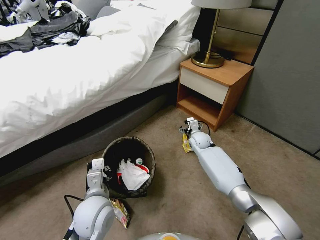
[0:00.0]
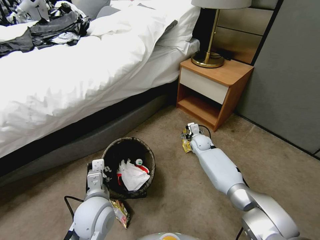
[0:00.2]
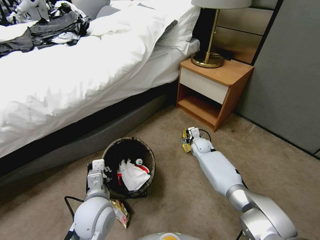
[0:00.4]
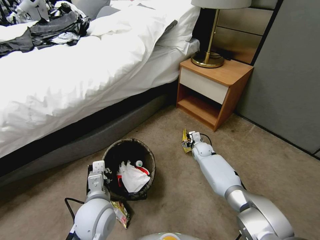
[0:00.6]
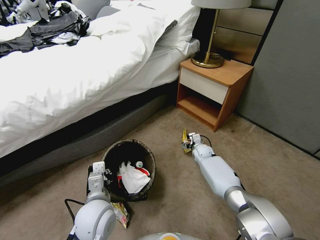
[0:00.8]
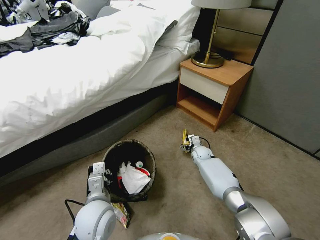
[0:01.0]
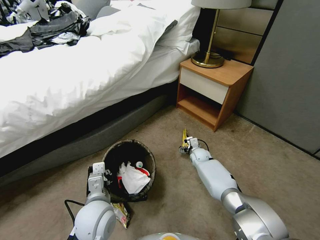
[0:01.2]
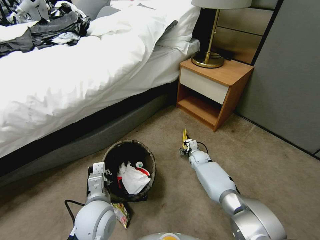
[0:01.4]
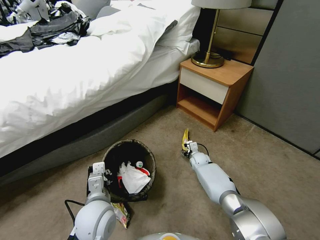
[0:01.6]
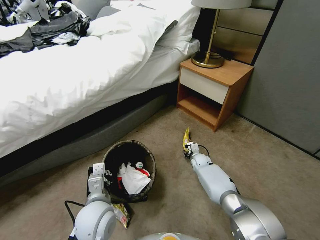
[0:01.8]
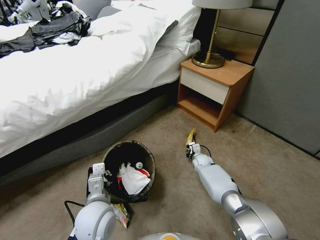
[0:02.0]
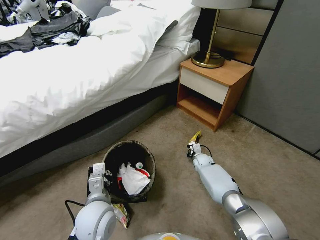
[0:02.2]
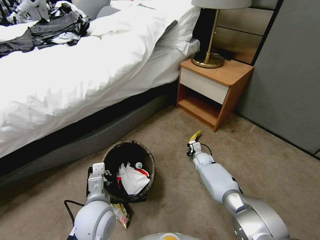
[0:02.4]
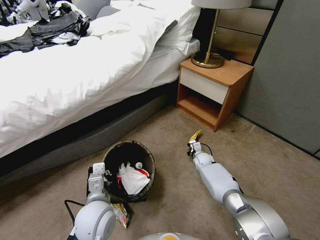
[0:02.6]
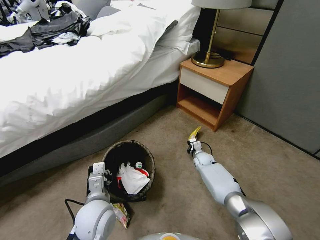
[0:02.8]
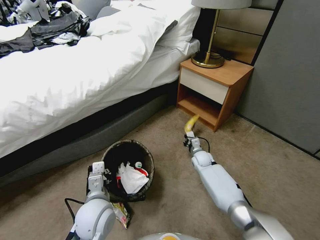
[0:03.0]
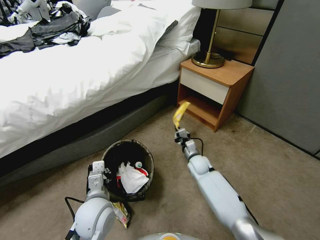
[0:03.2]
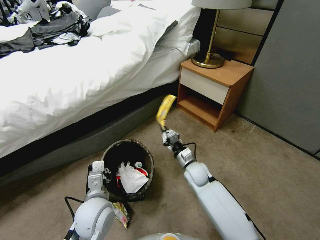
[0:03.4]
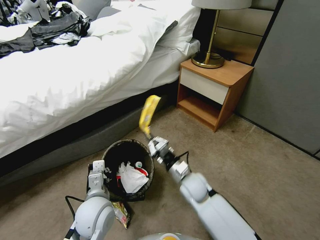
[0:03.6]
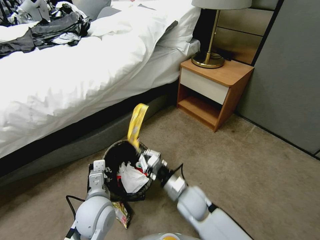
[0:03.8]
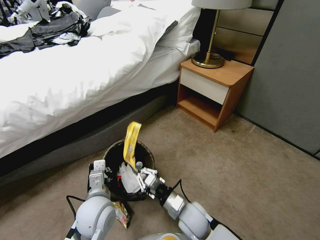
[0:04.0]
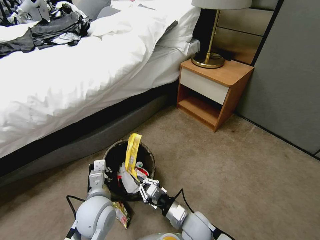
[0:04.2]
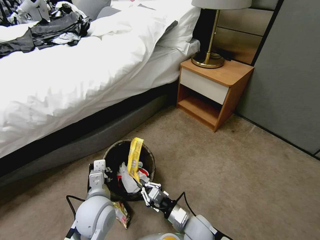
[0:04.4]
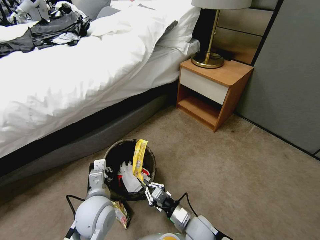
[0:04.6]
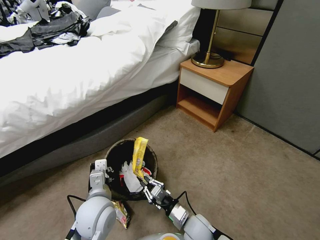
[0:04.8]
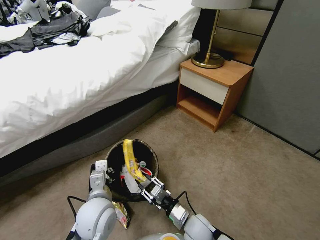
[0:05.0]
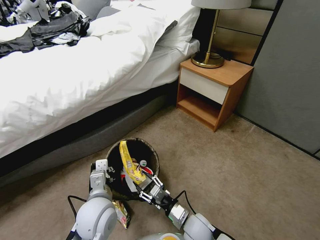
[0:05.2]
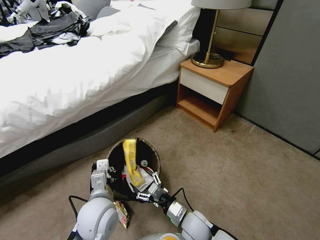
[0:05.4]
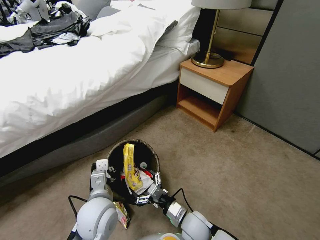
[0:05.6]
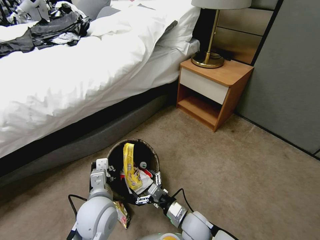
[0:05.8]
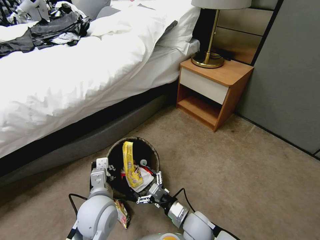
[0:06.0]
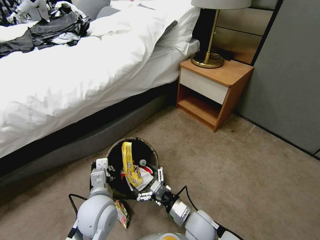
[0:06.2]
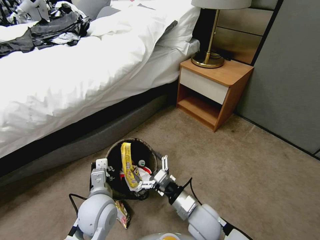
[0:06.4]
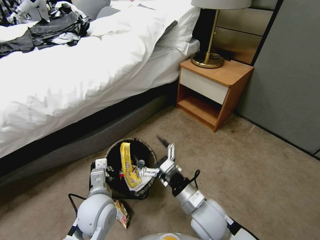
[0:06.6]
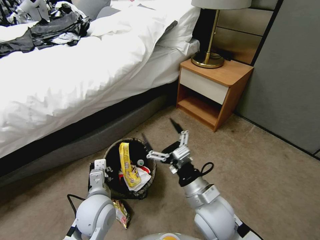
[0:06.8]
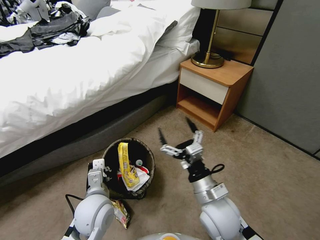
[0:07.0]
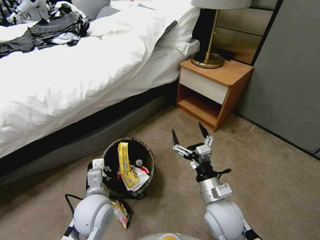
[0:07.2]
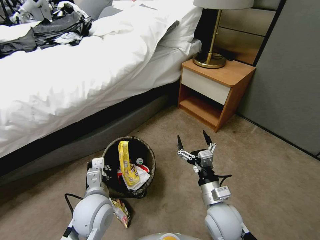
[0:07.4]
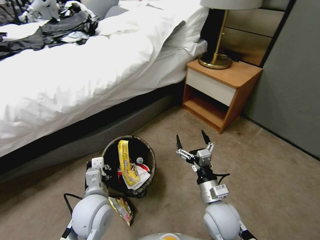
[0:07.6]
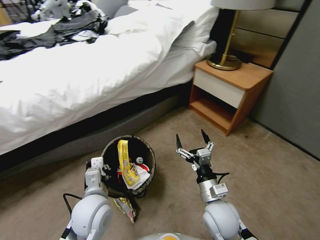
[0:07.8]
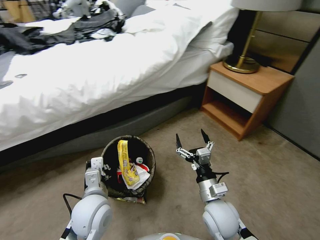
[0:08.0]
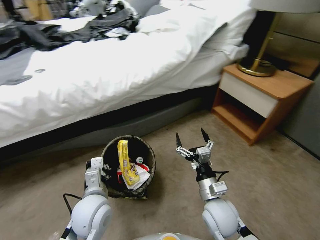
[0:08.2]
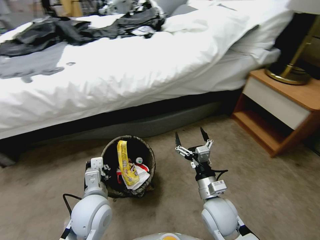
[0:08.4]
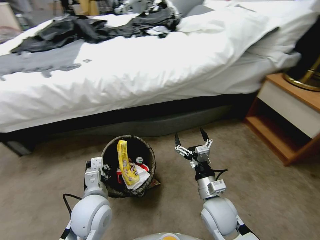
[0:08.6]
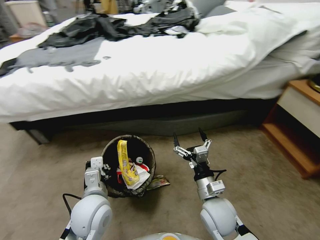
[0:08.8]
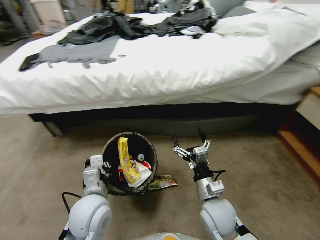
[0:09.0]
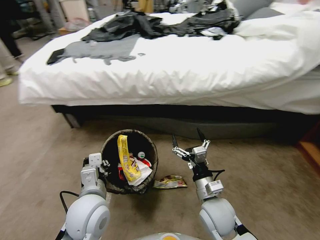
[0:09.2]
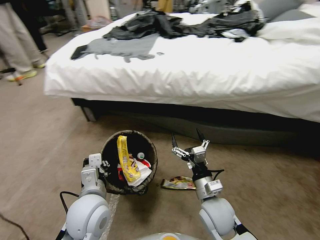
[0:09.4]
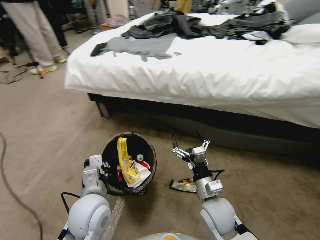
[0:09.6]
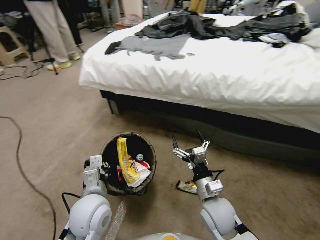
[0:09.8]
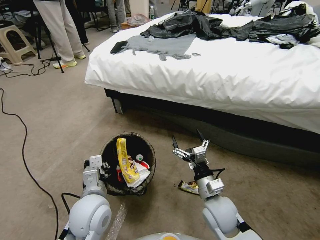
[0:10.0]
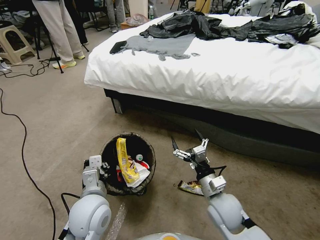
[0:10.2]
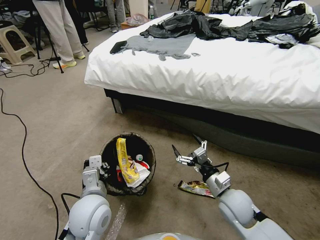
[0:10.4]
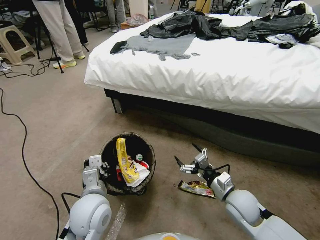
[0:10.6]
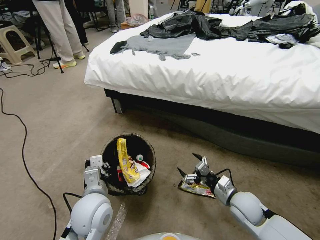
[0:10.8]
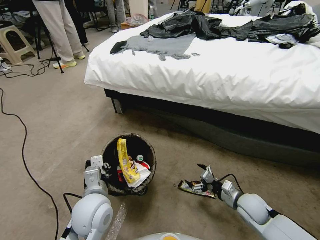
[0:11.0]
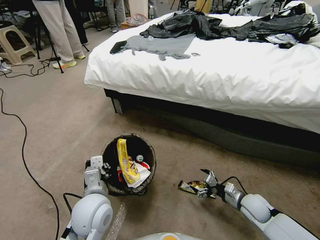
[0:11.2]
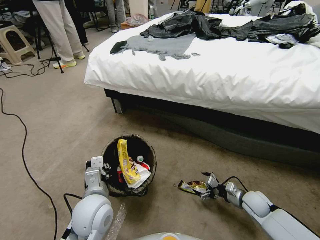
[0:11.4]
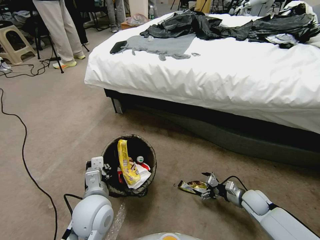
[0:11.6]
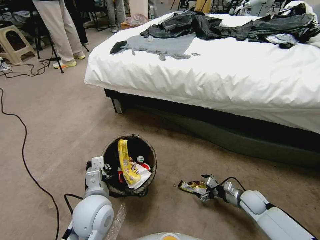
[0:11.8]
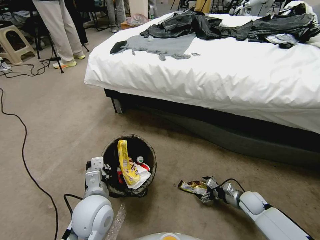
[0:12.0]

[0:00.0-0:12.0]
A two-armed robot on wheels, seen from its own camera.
Task of the whole recording: Pick up the trash bin, then pick up the garbage from the floor and place it into the trash bin.
0:00.0 to 0:01.6: The right gripper heads downward, covering about 10 cm.
0:01.6 to 0:03.0: The right gripper closes up.
0:03.0 to 0:04.4: The right gripper goes approximately 30 cm backward.
0:04.4 to 0:06.0: The right gripper opens.
0:06.0 to 0:07.6: The right gripper is displaced upward and to the right by roughly 10 cm.
0:09.0 to 0:10.4: The right gripper shifts some 5 cm to the right.
0:10.4 to 0:12.0: The right gripper goes approximately 25 cm downward and to the right.

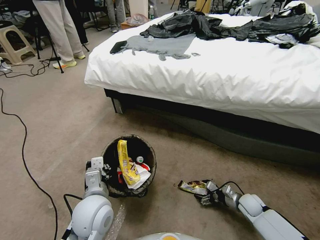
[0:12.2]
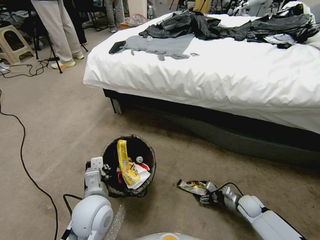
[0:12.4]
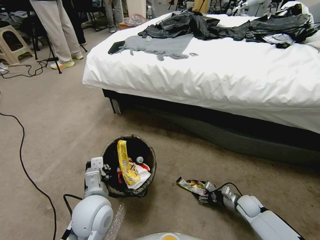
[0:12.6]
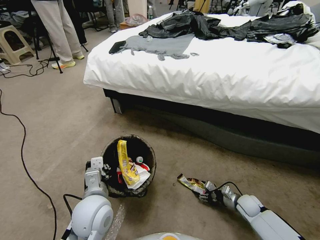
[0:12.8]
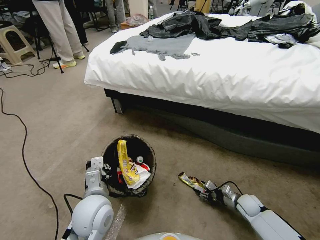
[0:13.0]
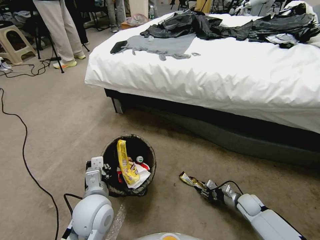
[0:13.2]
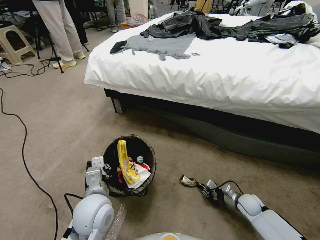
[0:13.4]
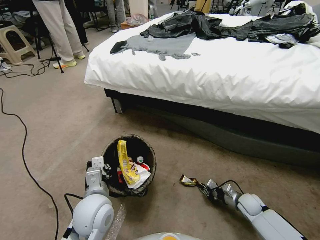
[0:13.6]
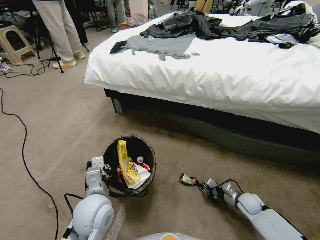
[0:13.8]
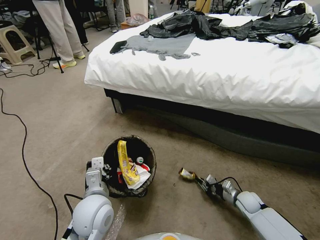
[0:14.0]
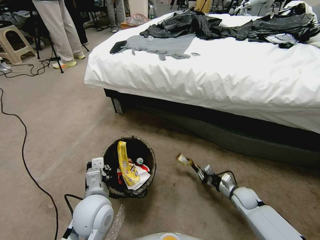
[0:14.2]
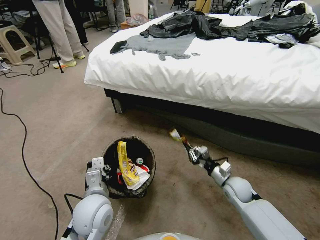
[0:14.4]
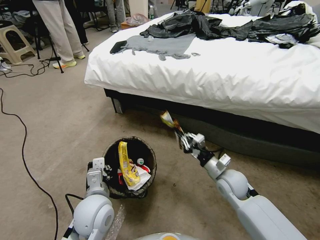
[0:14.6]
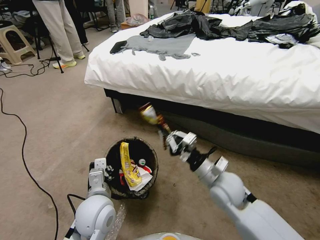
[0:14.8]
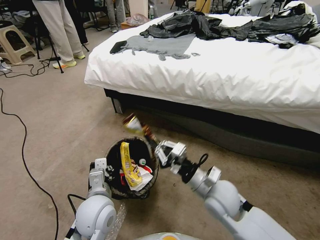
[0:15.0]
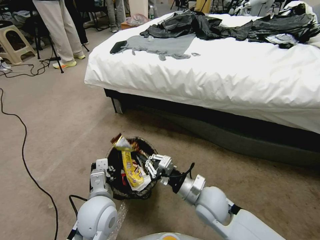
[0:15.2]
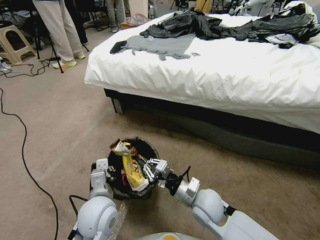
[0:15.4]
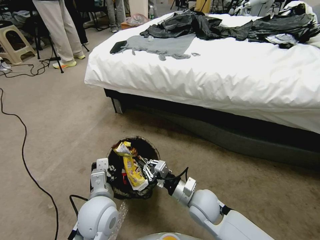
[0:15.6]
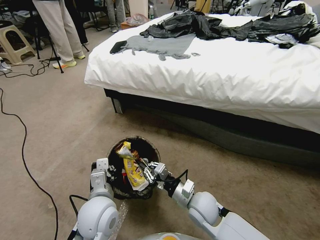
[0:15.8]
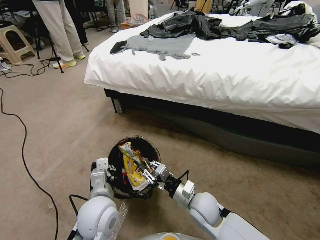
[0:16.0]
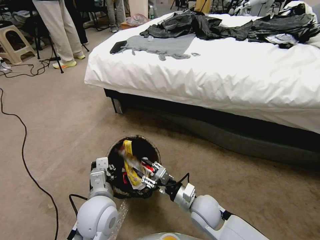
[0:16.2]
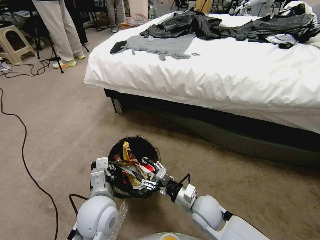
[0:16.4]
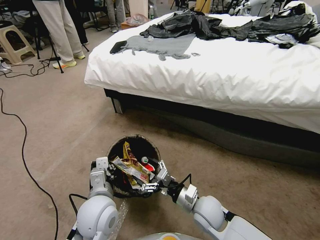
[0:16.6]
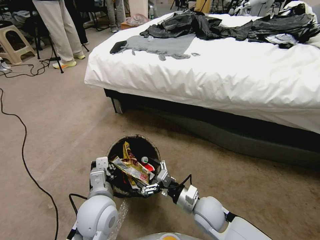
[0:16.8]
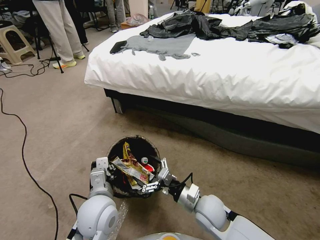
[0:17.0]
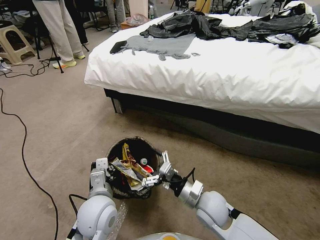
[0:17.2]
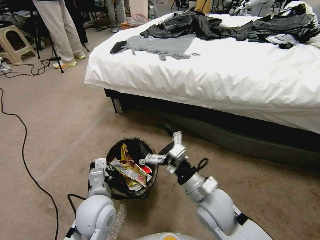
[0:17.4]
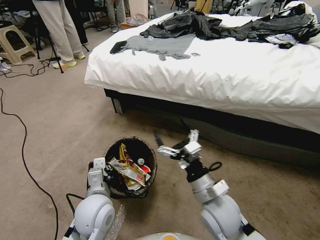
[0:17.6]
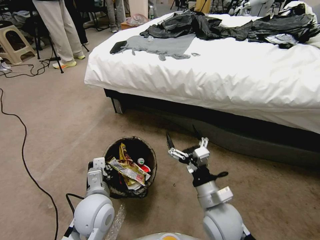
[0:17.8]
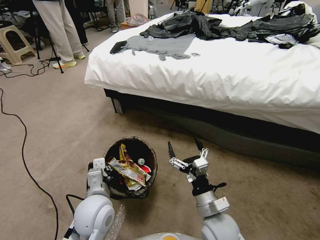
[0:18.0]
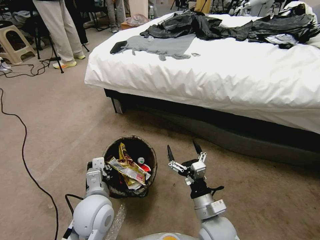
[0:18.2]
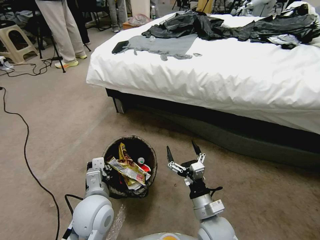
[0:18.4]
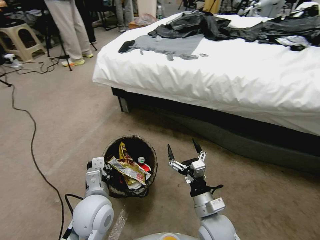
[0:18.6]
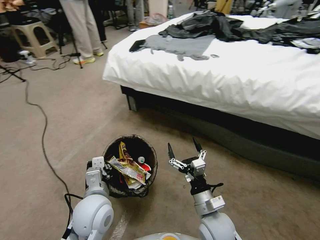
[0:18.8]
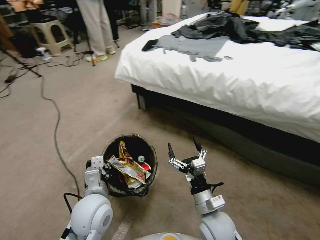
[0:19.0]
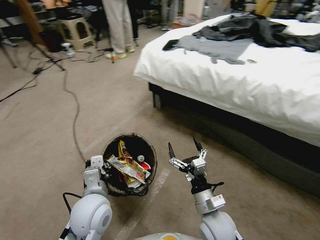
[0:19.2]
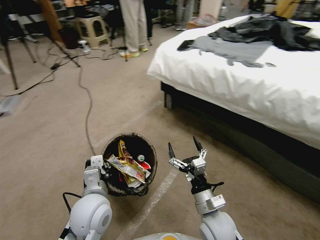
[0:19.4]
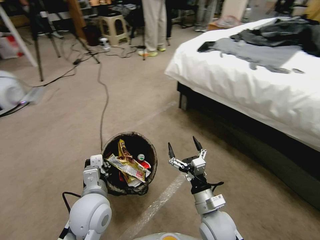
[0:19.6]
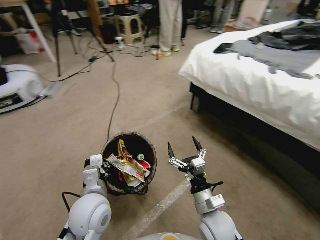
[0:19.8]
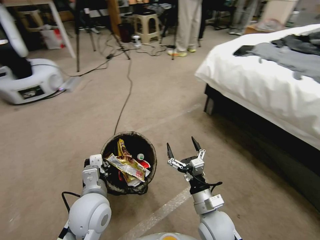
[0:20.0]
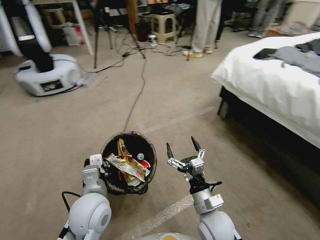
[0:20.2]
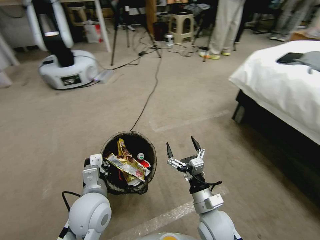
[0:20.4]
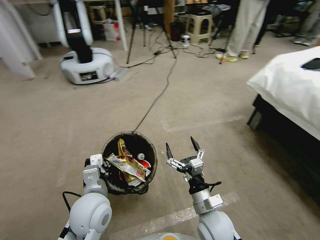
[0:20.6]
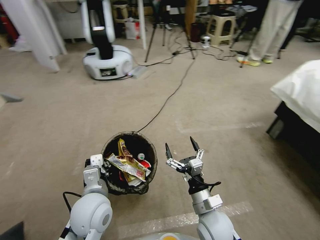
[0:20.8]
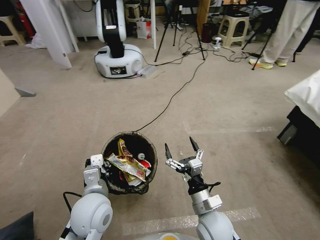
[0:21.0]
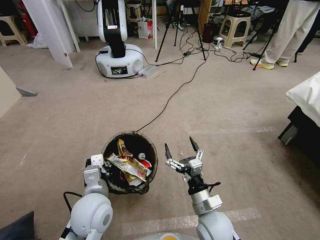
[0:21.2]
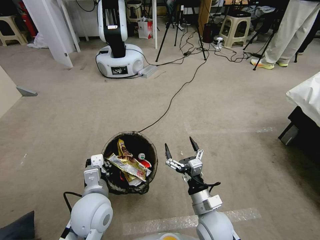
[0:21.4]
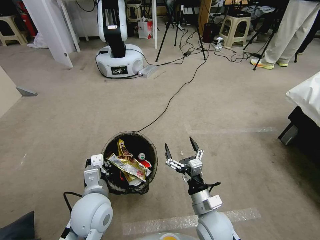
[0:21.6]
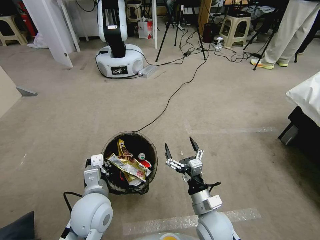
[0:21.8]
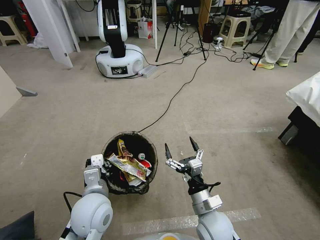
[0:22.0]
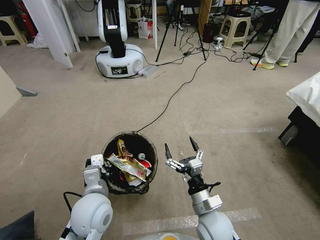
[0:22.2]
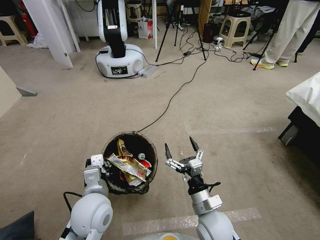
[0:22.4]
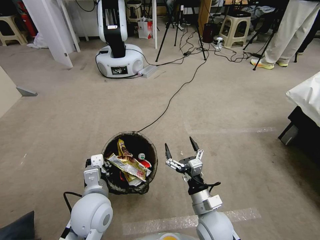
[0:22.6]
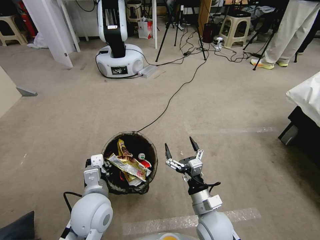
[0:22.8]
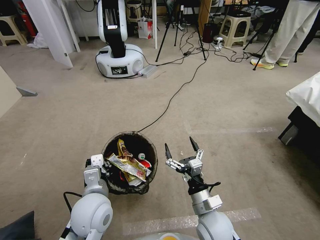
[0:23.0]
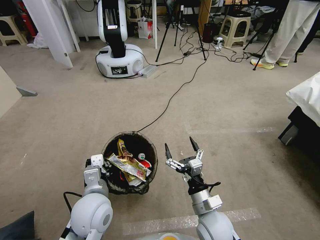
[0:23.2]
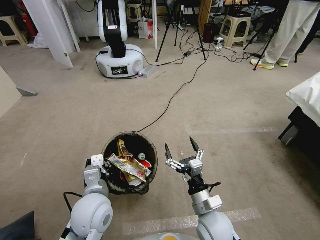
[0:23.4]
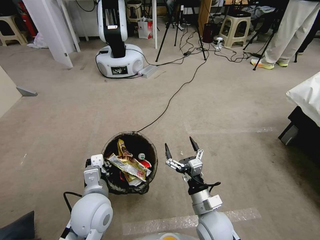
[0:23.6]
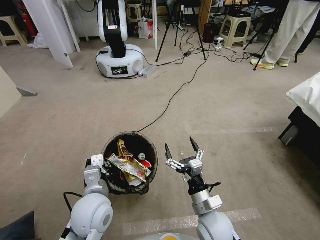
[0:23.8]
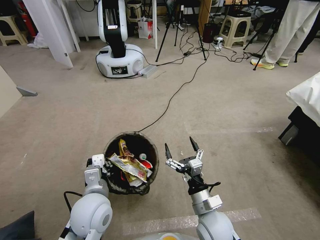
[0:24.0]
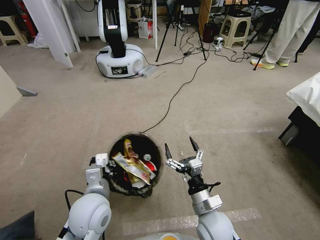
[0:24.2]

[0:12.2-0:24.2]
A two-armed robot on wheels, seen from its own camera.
Task of the whole recording: Pick up the trash bin, then pick up the garbage from the floor and place it into the trash bin.
0:12.2 to 0:13.8: The right gripper closes its fingers.
0:13.8 to 0:15.2: The right gripper travels to the left and upward by about 30 cm.
0:15.2 to 0:16.6: The right gripper shifts roughly 10 cm downward, and opens its fingers.
0:16.6 to 0:18.2: The right gripper is displaced backward by approximately 5 cm, and travels upward and back again, some 10 cm each way.
0:21.2 to 0:22.6: Both grippers stay about where they are.
0:22.6 to 0:24.2: The grippers make only small movements.
